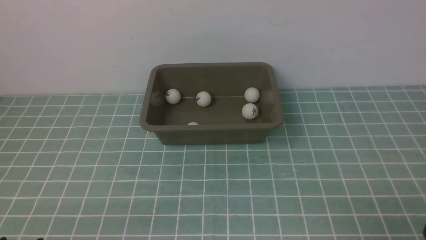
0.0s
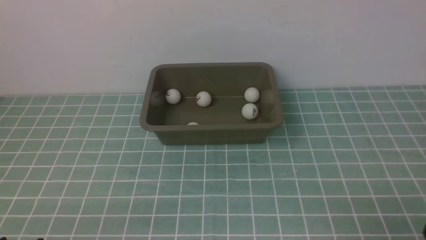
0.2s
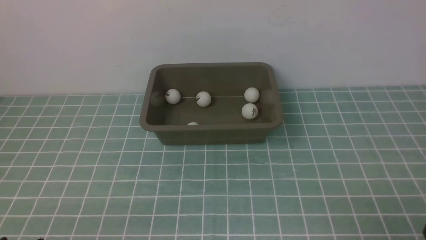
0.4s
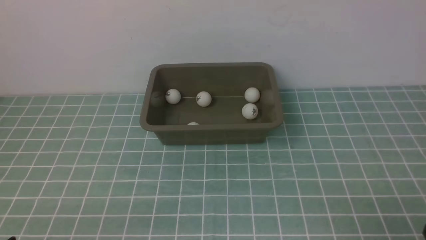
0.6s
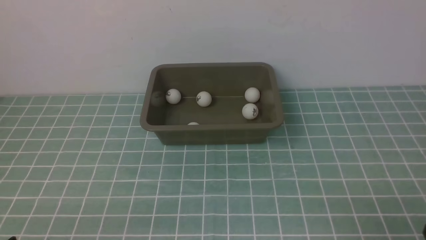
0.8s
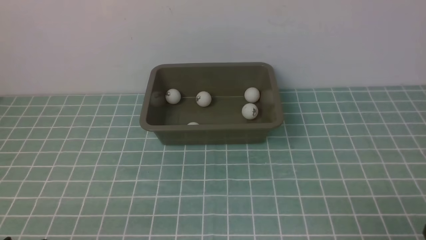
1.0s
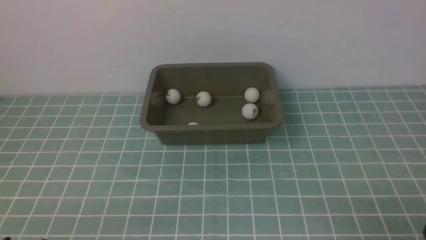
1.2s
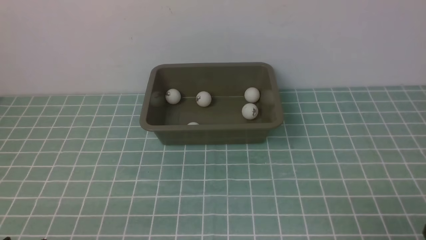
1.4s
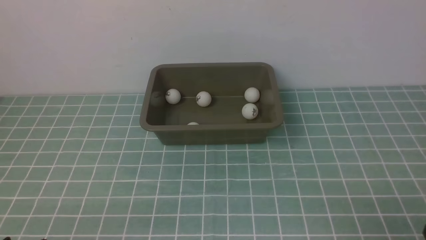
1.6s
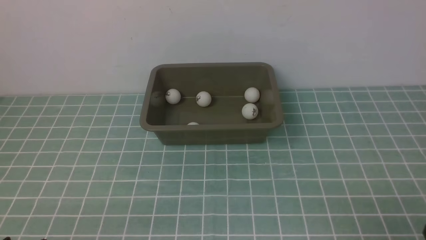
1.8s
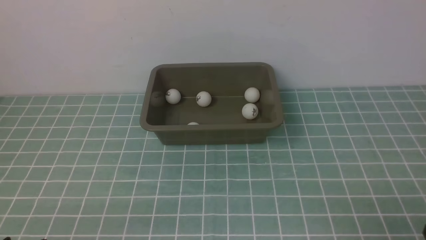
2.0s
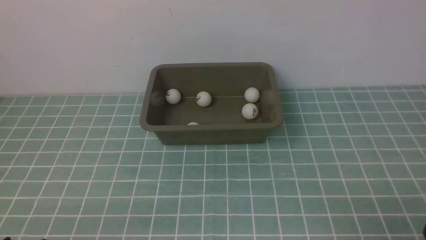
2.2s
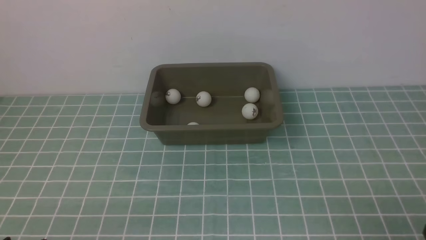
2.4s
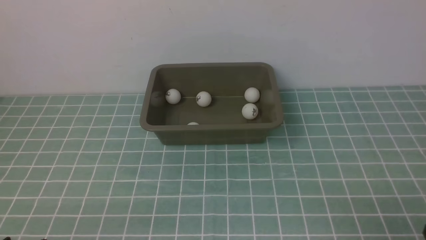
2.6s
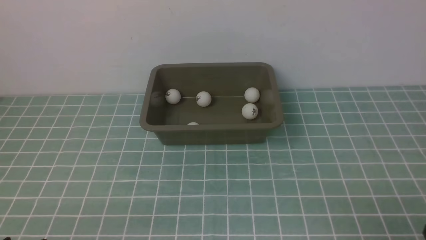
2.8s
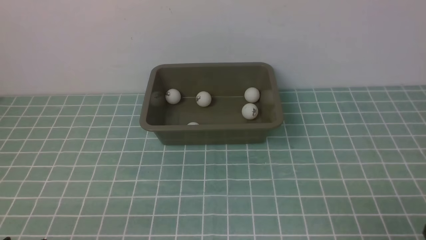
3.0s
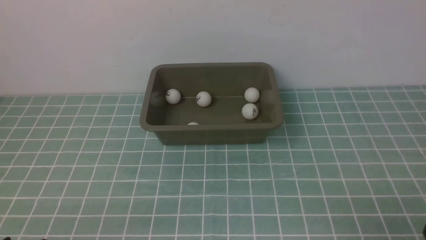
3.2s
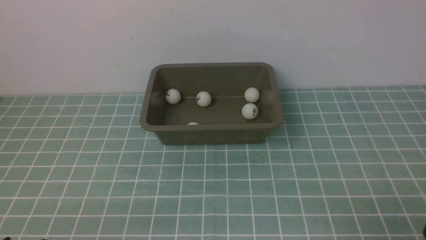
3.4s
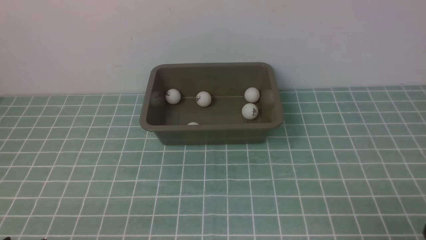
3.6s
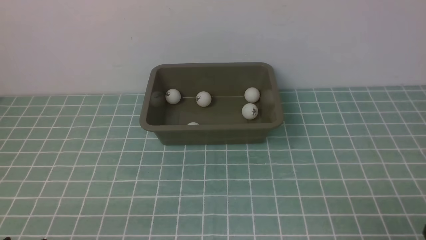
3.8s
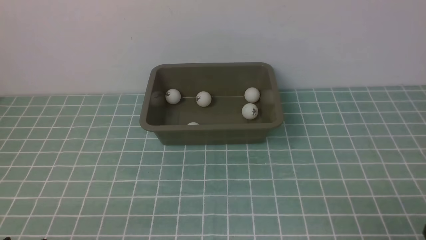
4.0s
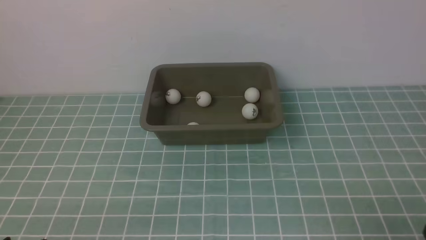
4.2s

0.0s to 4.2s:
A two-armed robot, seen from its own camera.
0.0s to 4.2s: Both grippers stay about where they are.
